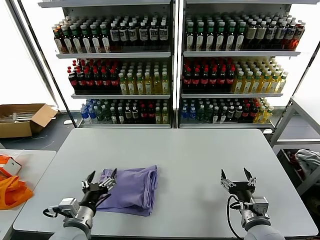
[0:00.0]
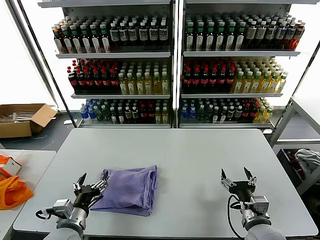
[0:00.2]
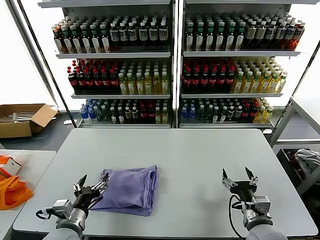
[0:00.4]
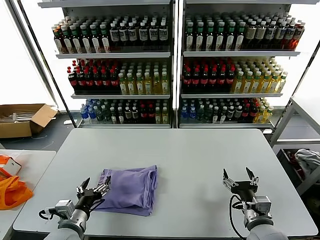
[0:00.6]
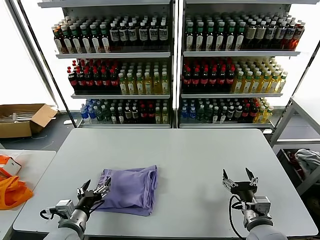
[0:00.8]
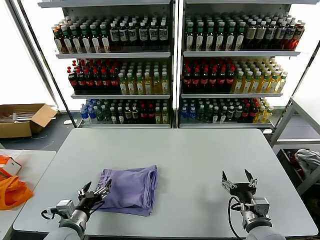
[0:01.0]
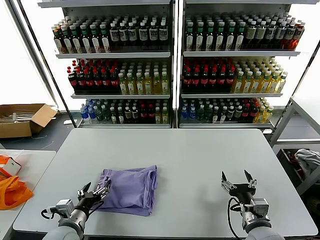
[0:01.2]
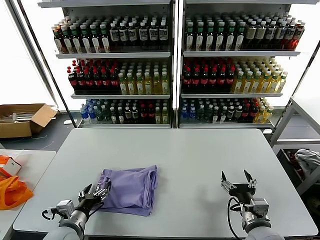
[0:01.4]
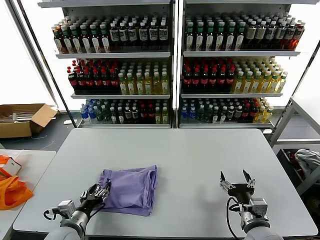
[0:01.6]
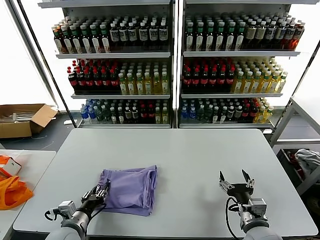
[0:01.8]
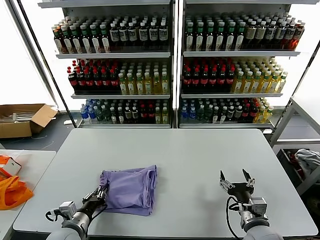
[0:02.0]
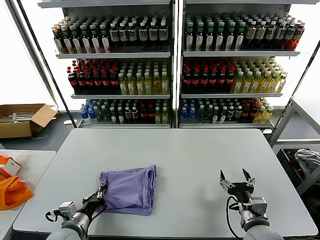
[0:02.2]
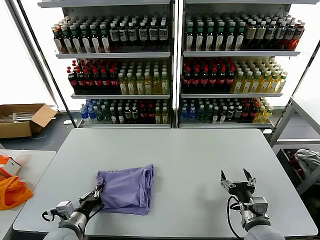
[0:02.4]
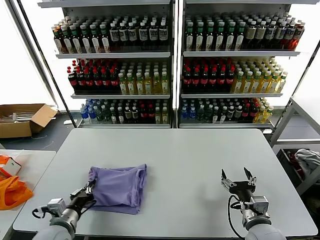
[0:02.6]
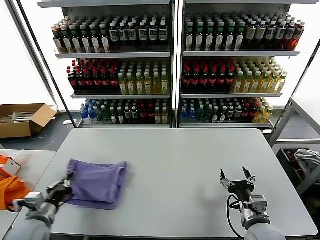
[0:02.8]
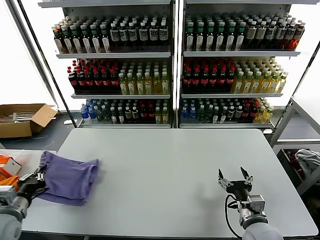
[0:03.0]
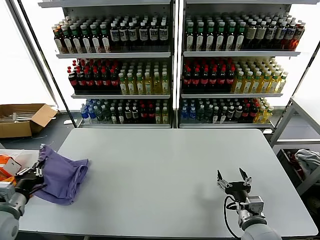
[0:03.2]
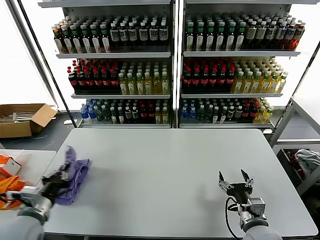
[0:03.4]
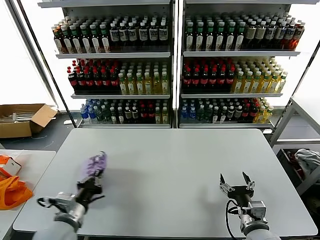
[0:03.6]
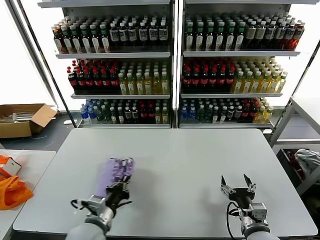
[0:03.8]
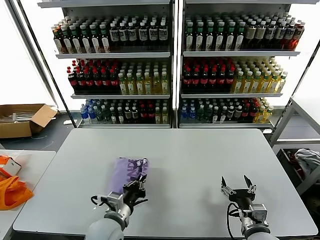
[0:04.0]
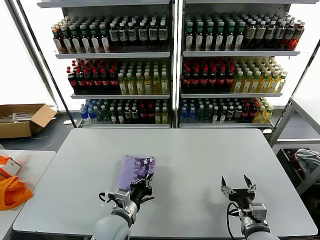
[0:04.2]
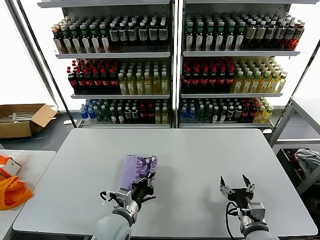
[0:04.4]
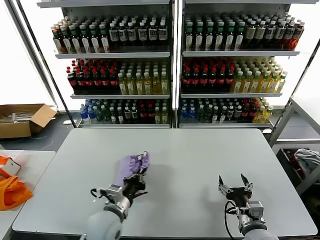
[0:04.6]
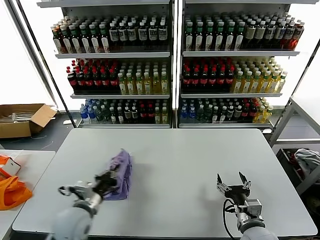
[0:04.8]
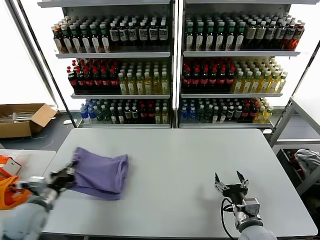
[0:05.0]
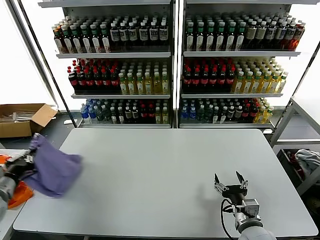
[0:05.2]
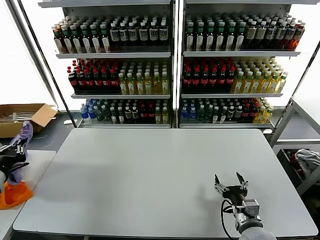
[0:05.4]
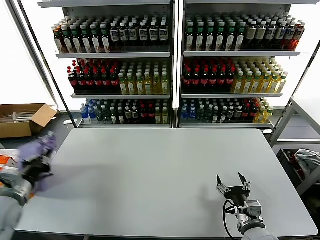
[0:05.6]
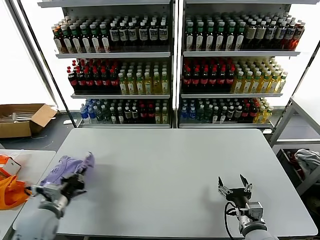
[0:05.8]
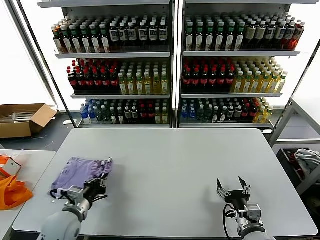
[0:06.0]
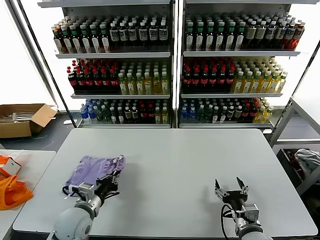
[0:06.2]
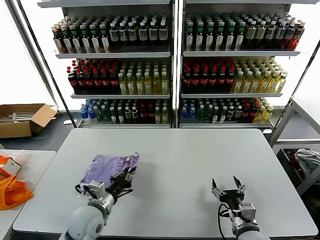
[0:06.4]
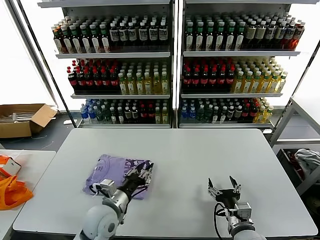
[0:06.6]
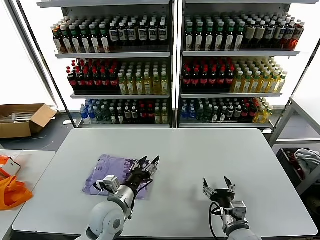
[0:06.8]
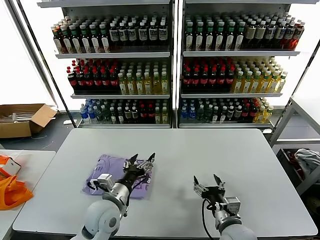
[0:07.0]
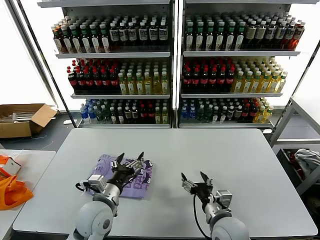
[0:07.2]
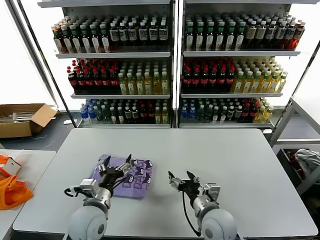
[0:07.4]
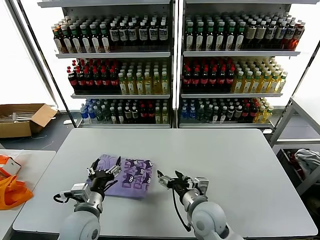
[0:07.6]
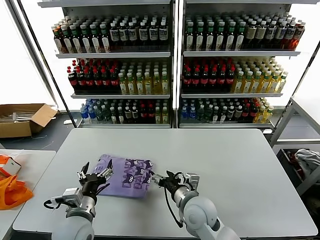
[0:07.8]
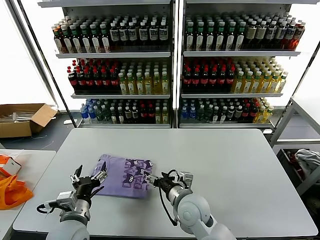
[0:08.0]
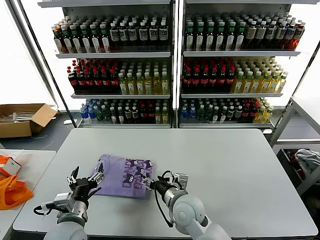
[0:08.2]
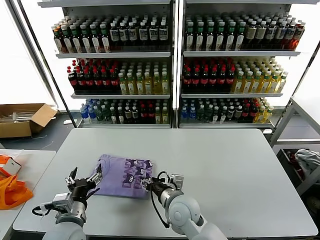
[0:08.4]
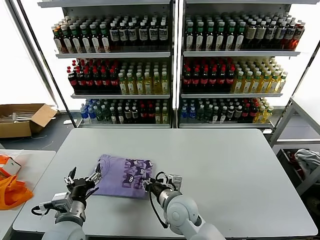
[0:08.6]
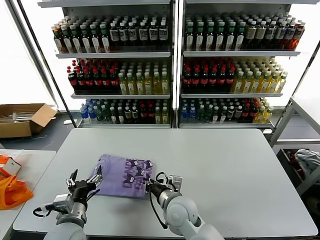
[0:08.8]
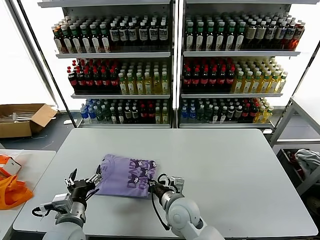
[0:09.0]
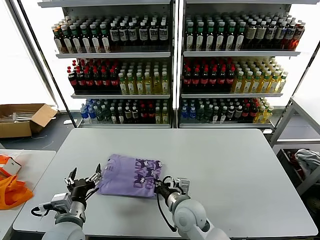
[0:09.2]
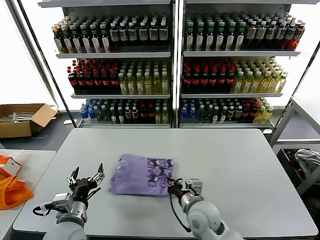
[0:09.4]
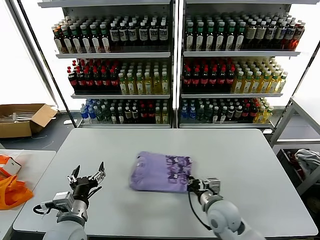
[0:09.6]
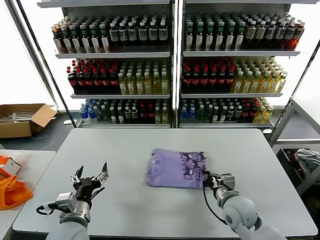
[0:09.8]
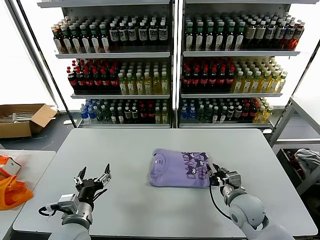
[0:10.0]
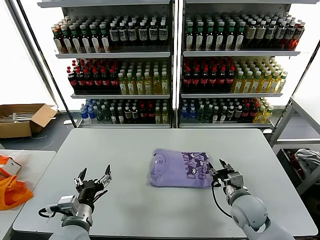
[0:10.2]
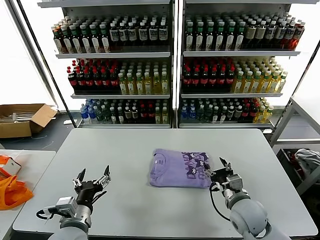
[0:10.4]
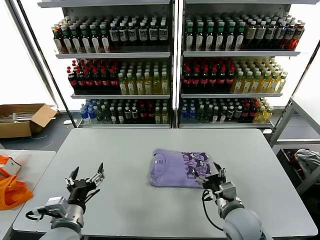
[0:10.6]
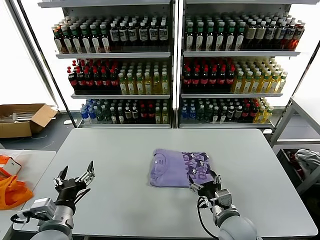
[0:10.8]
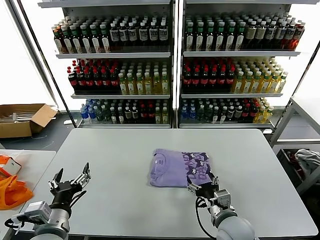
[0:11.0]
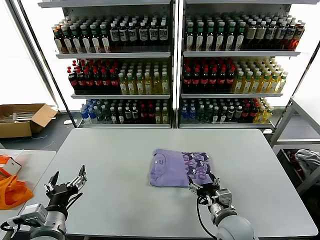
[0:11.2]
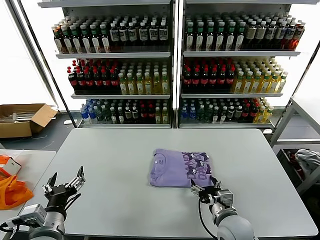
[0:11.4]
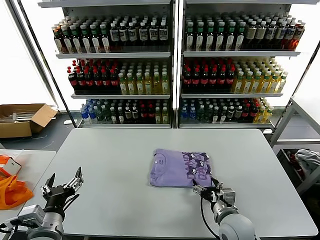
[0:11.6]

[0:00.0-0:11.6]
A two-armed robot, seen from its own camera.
Task of the whole recording: fold and organize the clothes.
Step, 0:00.0 to 0:06.6: Flip the folded clothes over with left gripper.
Step, 0:06.8 to 0:10.0: Drag the clothes to the center of the table.
0:00.0 to 0:01.4: The left gripper shifts roughly 5 cm to the left and downward.
0:01.4 to 0:02.8: The left gripper is displaced to the left by approximately 5 cm, and closes its fingers.
0:02.8 to 0:04.4: The left gripper is displaced to the right by about 20 cm.
0:04.4 to 0:05.8: The left gripper shifts approximately 25 cm to the left.
0:05.8 to 0:07.2: The left gripper is displaced to the right by about 20 cm, and opens. The right gripper moves to the left, roughly 10 cm.
0:07.2 to 0:08.8: The left gripper shifts approximately 10 cm to the left and backward. Meanwhile the right gripper moves to the left and forward, roughly 15 cm, and closes up.
0:08.8 to 0:10.2: The right gripper is displaced to the right by approximately 20 cm.
0:10.2 to 0:11.6: The left gripper changes place by some 5 cm, while the right gripper heads backward, covering some 5 cm, and opens.

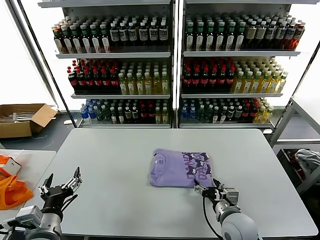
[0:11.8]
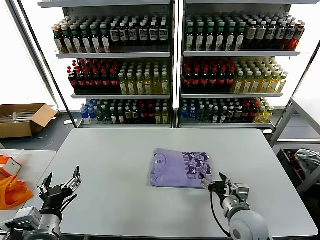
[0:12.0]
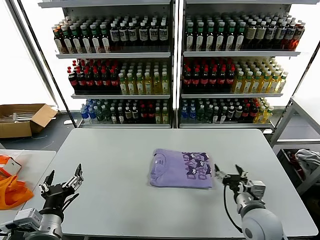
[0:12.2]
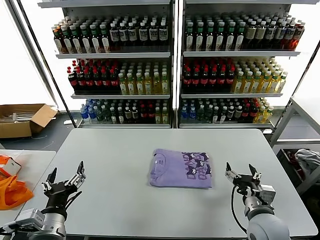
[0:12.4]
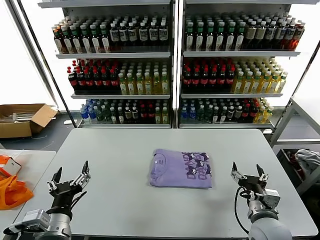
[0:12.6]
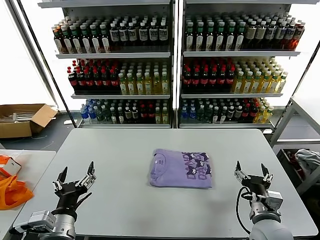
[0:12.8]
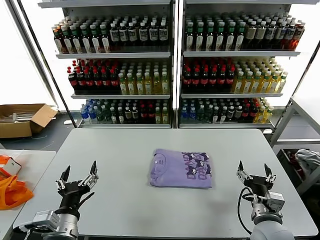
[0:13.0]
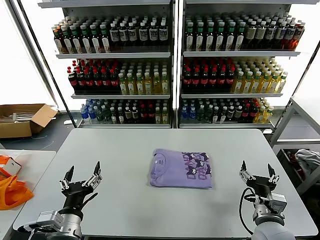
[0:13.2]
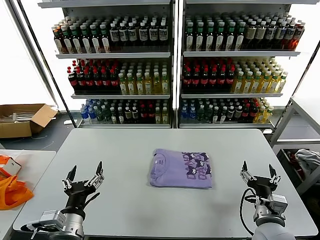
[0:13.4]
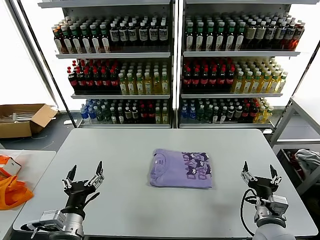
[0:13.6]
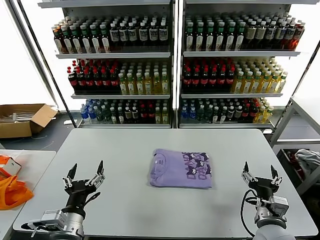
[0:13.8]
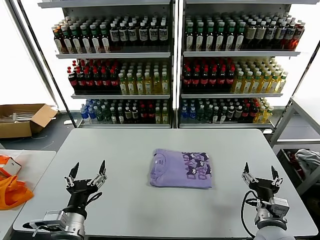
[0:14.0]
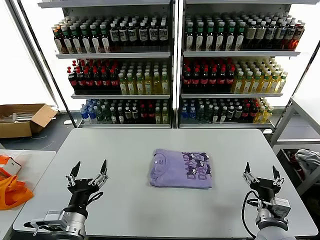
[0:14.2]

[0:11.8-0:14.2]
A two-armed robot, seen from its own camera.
Task of the whole recording: fold and organize the clothes.
0:11.8 to 0:13.0: The right gripper shifts some 5 cm to the right.
0:13.0 to 0:14.2: The grippers move only a little.
